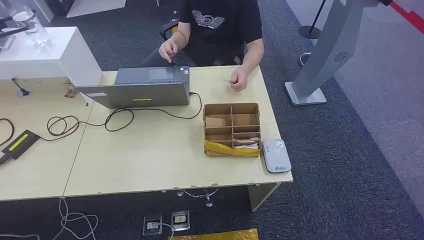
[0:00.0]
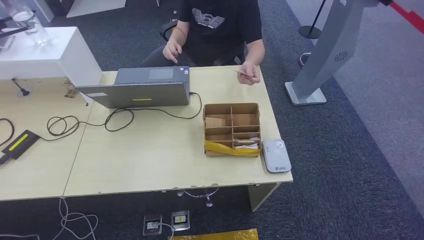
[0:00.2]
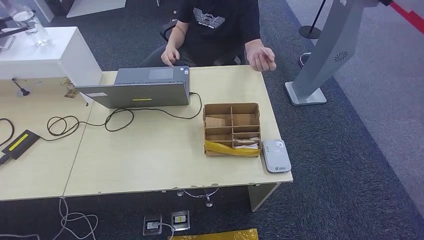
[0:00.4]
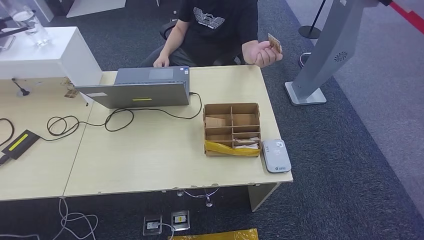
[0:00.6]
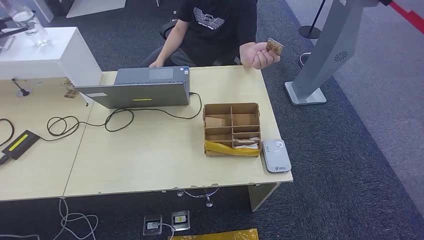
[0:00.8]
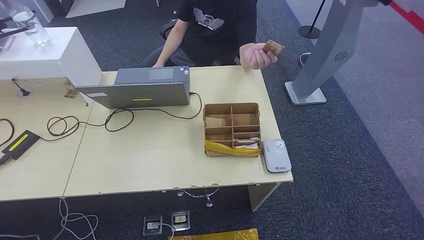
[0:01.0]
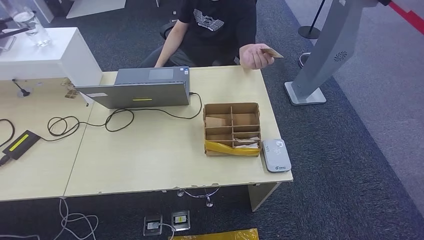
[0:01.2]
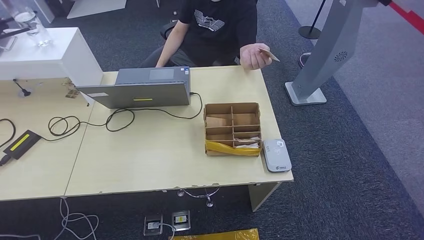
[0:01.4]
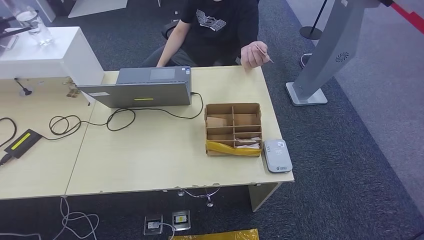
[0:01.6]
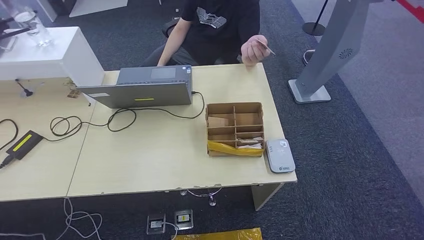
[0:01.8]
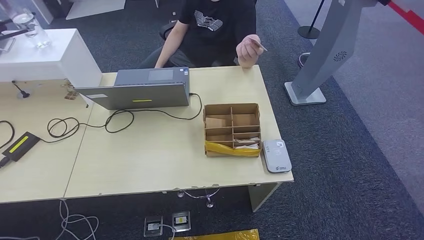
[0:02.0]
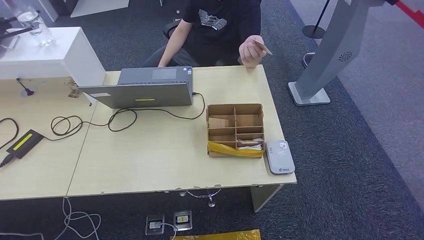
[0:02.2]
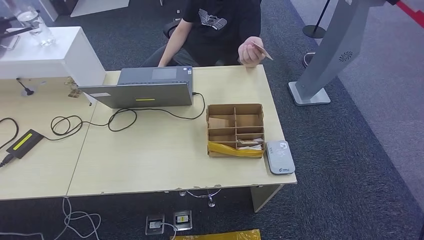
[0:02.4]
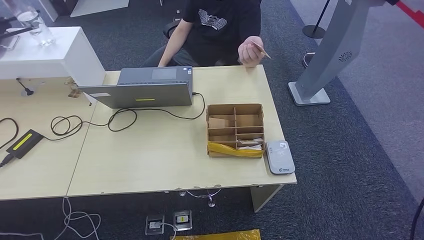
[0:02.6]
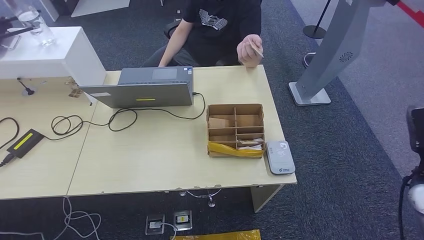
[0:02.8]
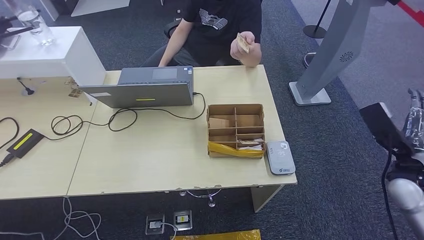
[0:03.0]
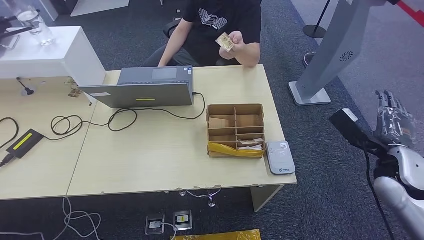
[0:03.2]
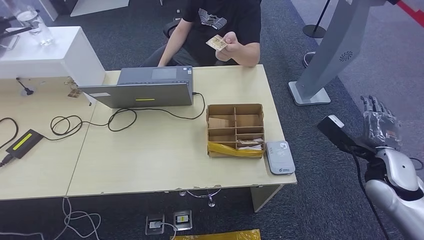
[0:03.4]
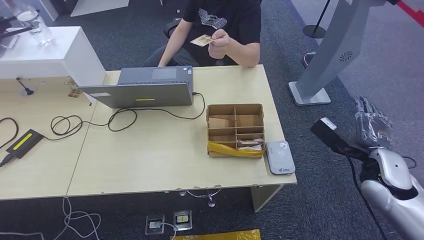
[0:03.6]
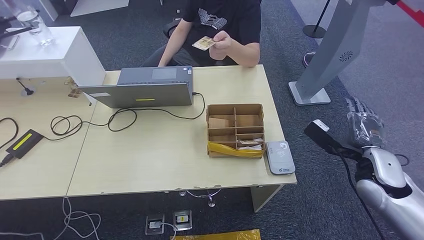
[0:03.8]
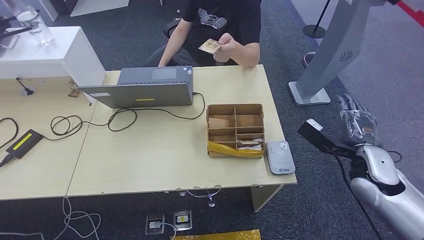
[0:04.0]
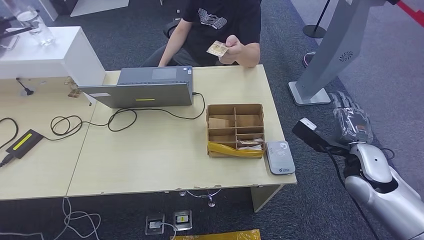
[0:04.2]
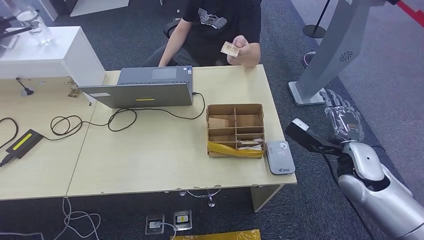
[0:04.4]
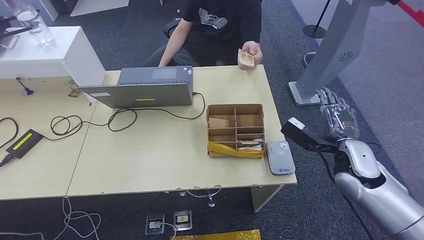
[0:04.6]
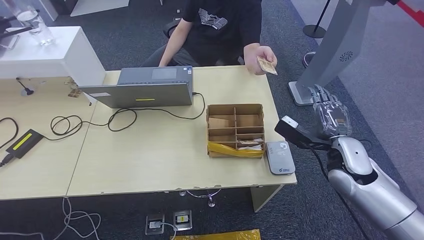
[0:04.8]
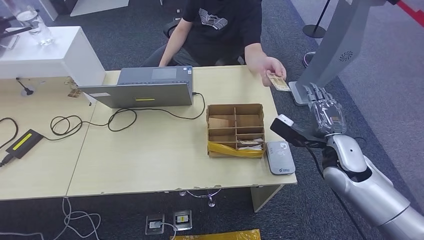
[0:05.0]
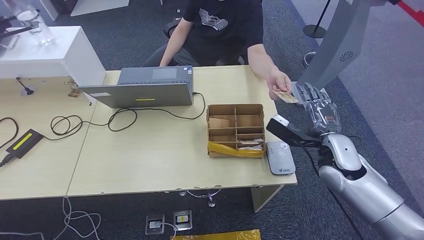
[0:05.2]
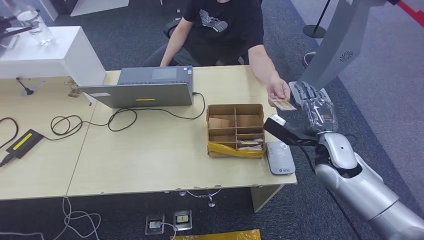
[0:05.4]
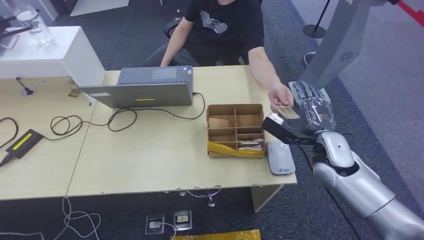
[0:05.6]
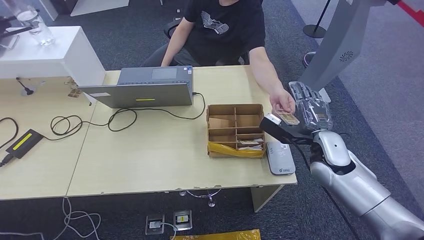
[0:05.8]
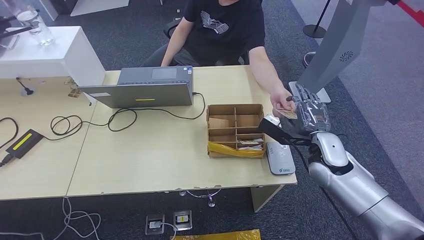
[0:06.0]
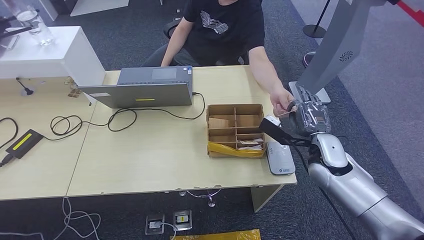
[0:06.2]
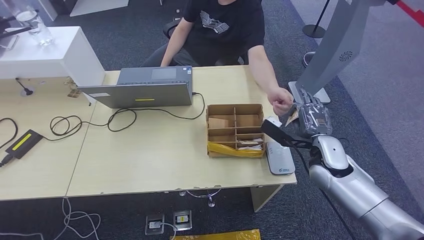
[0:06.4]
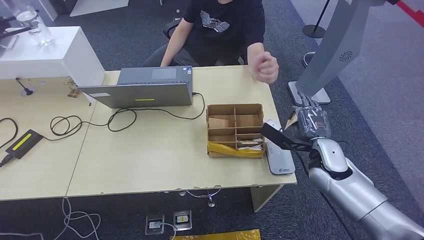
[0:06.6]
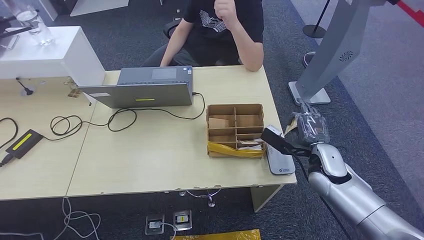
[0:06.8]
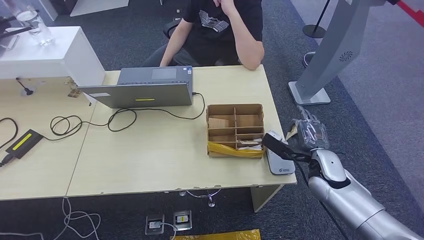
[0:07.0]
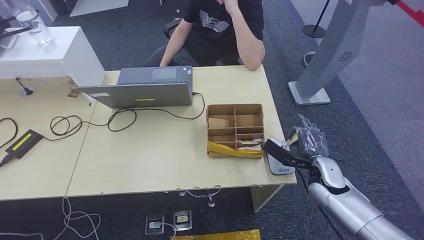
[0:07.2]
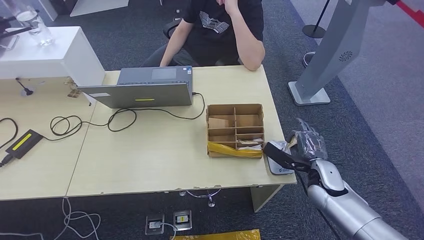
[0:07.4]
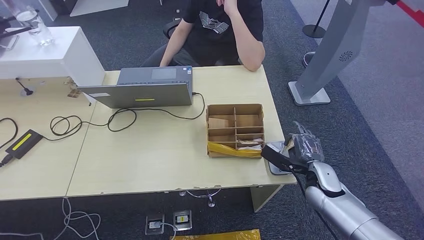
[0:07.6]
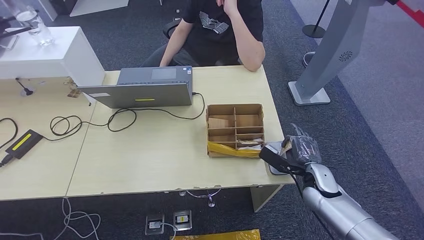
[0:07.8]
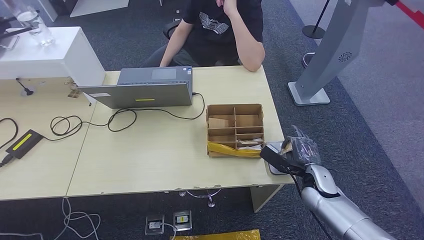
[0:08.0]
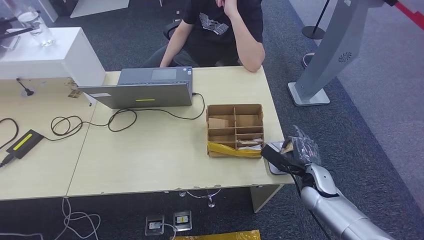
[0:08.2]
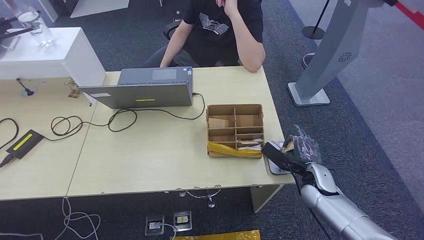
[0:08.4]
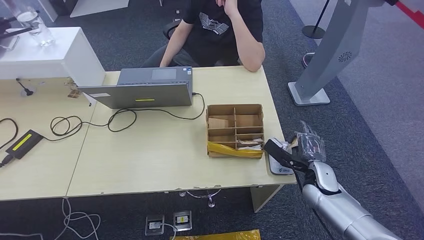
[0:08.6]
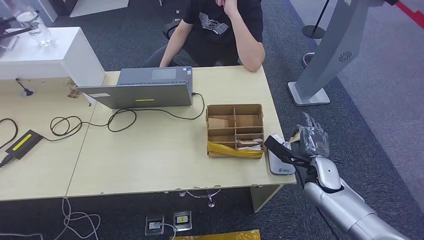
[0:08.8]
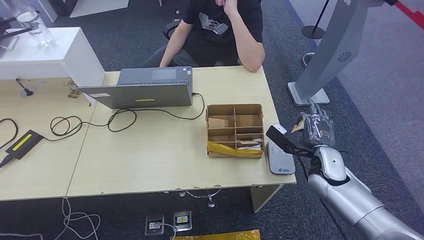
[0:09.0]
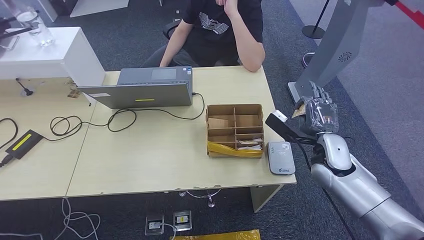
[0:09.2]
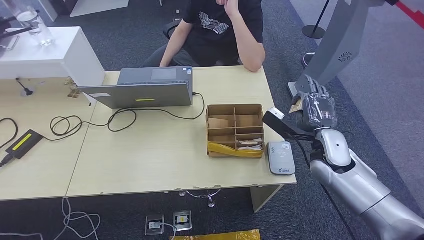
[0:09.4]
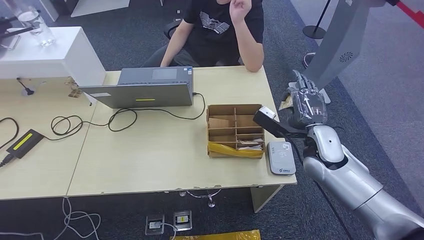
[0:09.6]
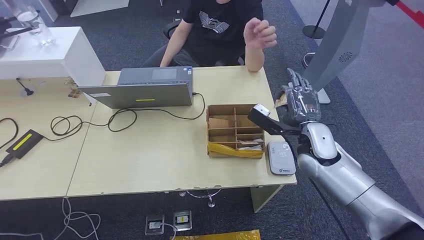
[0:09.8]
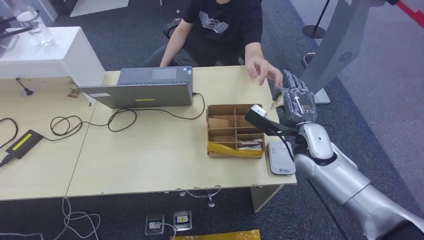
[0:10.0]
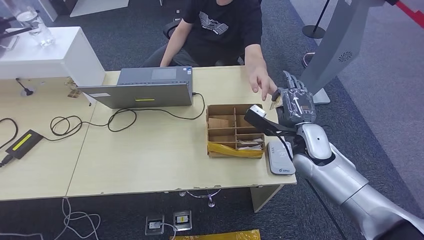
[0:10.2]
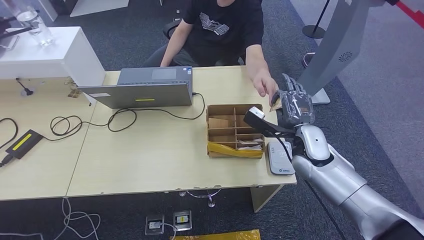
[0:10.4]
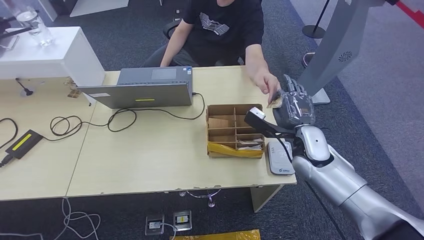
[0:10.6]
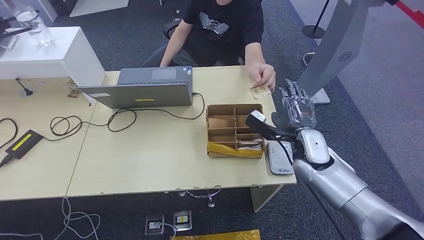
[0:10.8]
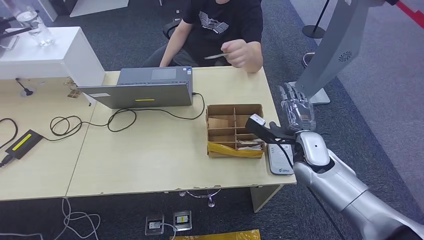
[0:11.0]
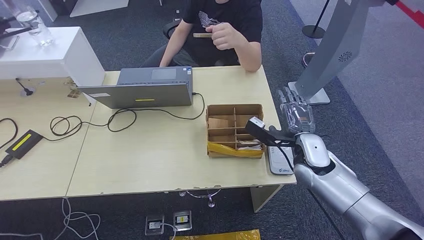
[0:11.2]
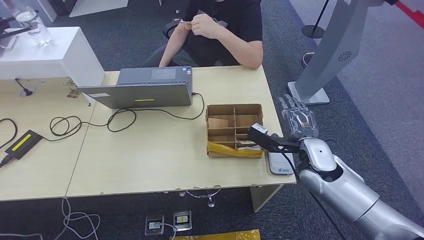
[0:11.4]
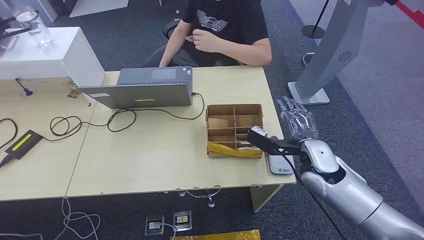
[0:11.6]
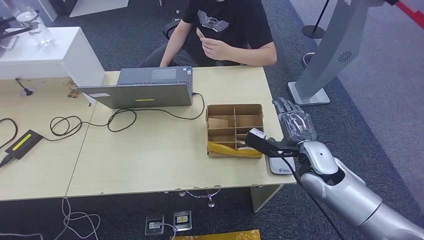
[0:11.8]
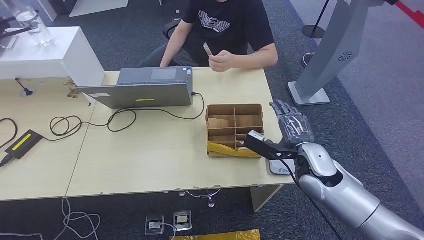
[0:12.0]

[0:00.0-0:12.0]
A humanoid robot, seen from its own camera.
Step, 0:00.0 to 0:07.0: Take the ID card from the person's hand.
Step, 0:07.4 to 0:10.0: Place the ID card on the card reader.
Step, 0:10.2 to 0:11.2: Hand the ID card to the person.
0:01.6 to 0:03.0: The right hand moves upward, to the left and forward, roughly 25 cm.
0:03.0 to 0:04.4: The right hand moves to the left, some 10 cm.
0:04.4 to 0:06.0: The right hand moves to the left, some 5 cm.
0:06.0 to 0:07.6: The right hand heads downward, covering approximately 10 cm.
0:07.6 to 0:09.0: The hands stay close to where they were, moving slightly.
0:09.0 to 0:10.4: The right hand heads to the left and upward, covering roughly 10 cm.
0:10.4 to 0:12.0: The hands move only a little.

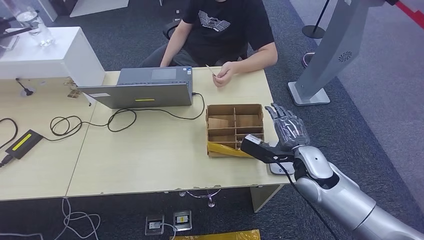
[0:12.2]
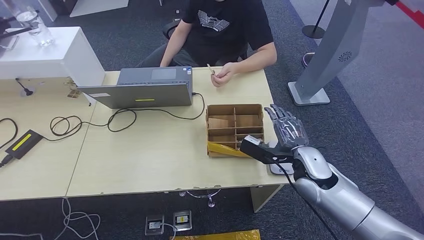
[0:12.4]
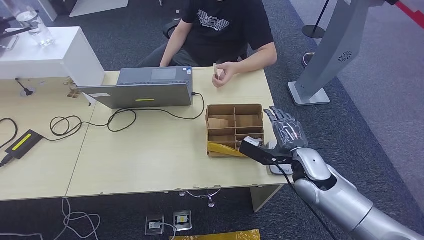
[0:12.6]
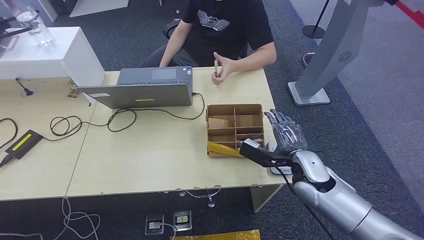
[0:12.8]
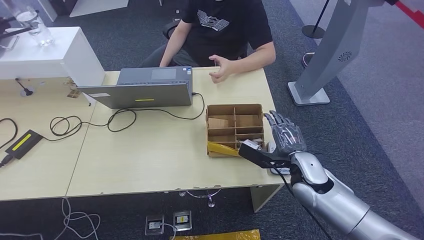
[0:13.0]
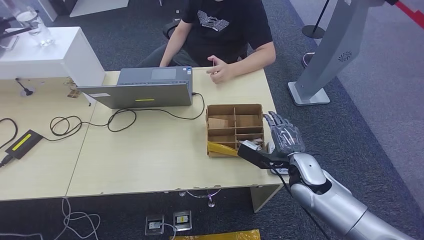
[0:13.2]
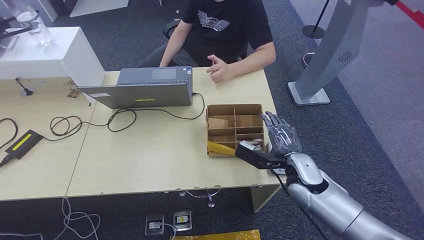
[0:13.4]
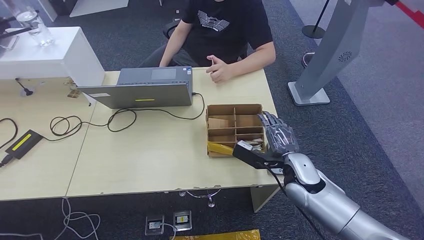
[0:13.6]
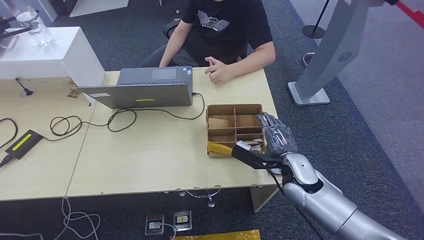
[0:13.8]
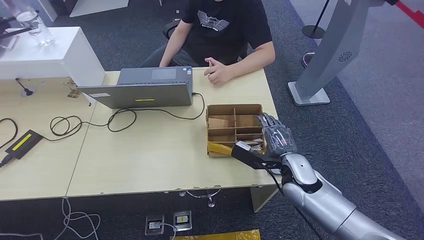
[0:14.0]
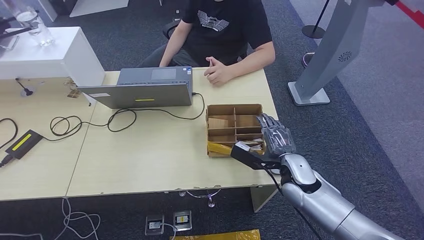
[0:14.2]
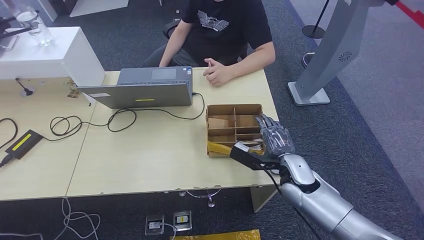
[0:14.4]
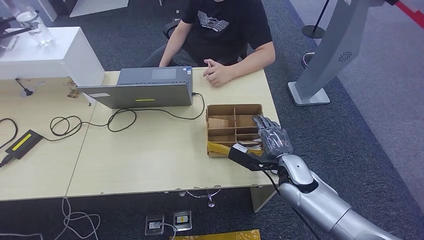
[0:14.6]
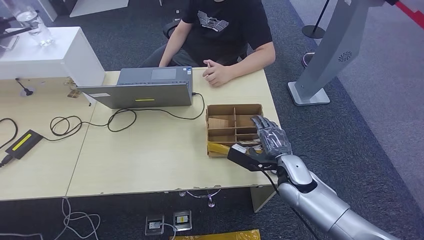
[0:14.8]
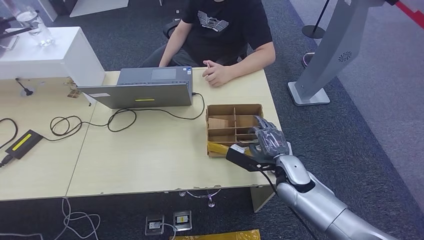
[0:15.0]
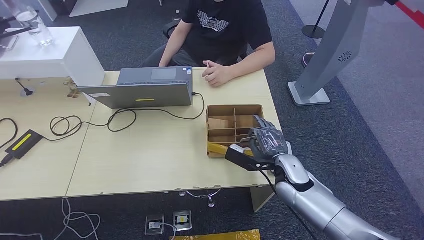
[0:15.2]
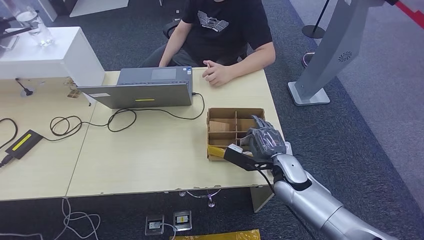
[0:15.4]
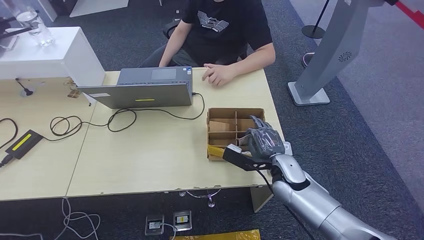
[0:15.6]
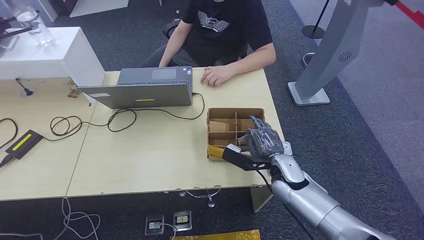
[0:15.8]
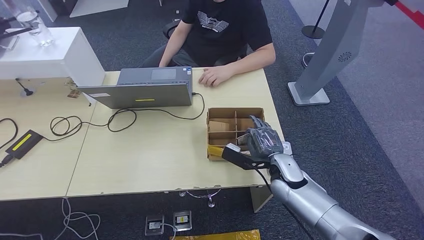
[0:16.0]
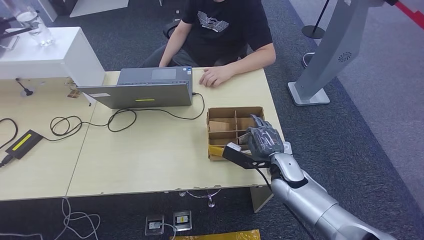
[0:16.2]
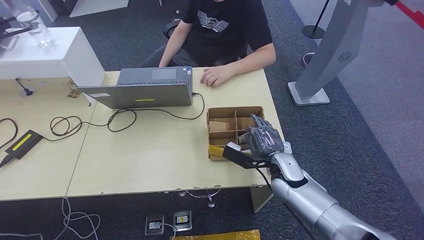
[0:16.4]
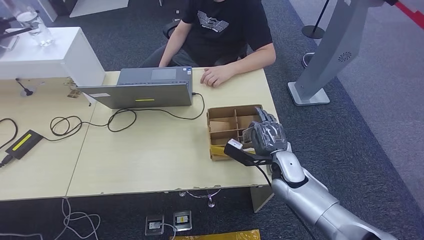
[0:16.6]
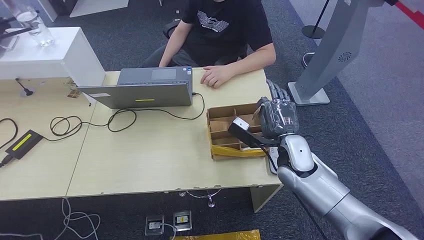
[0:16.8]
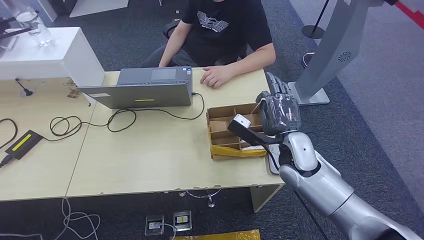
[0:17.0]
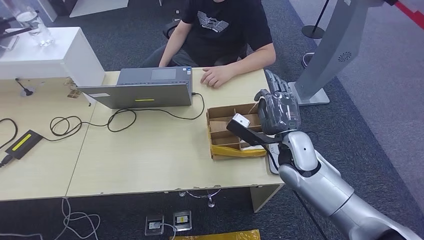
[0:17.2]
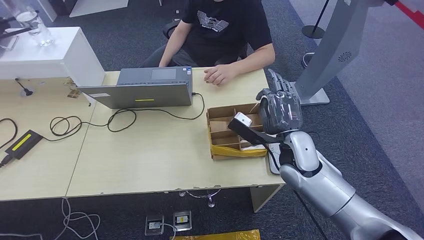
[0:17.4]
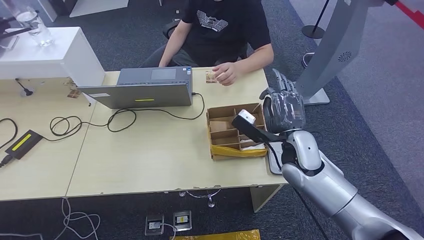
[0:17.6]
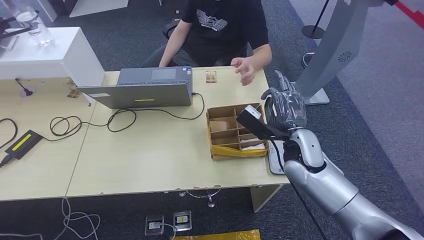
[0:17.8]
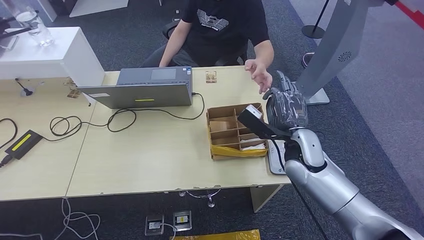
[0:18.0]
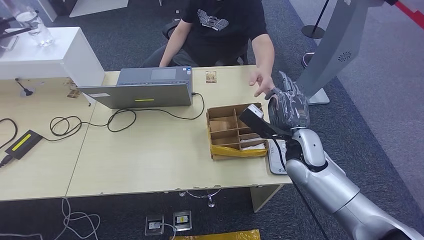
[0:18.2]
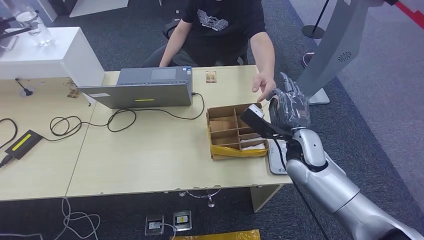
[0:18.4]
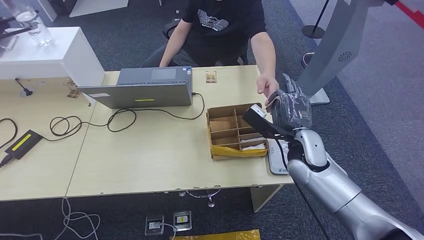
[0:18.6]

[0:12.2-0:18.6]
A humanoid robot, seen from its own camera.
Step, 0:12.2 to 0:17.2: Pick up the room key from the key card box.
0:12.2 to 0:13.8: There are only small adjustments of the hands.
0:13.8 to 0:15.4: The hands stay close to where they were, moving slightly.
0:15.4 to 0:17.0: The right hand moves upward, about 10 cm.
0:17.0 to 0:18.6: The hands make only small movements.
